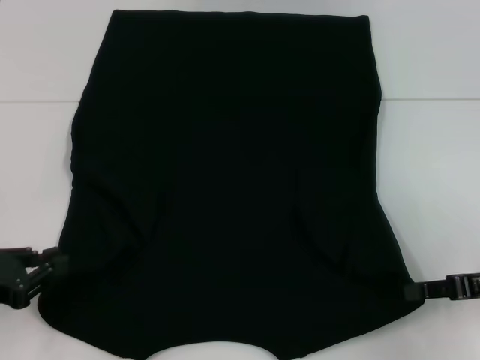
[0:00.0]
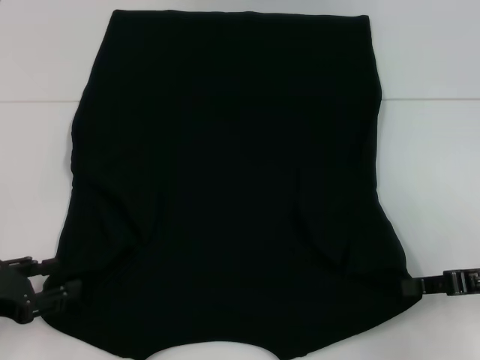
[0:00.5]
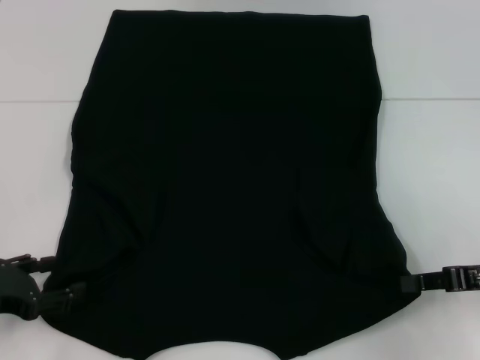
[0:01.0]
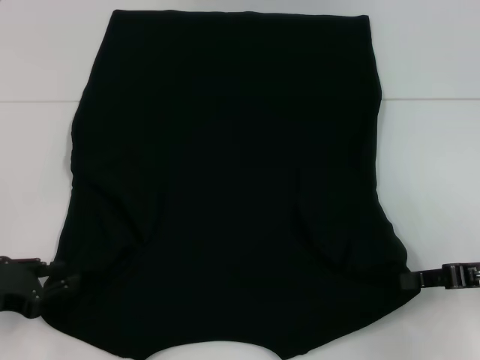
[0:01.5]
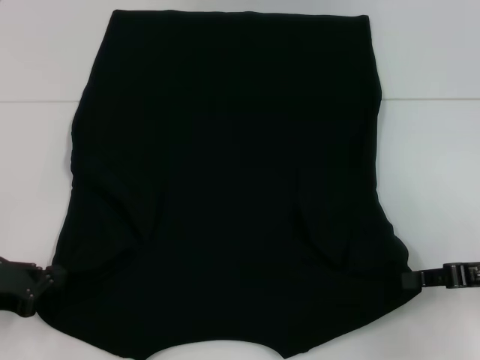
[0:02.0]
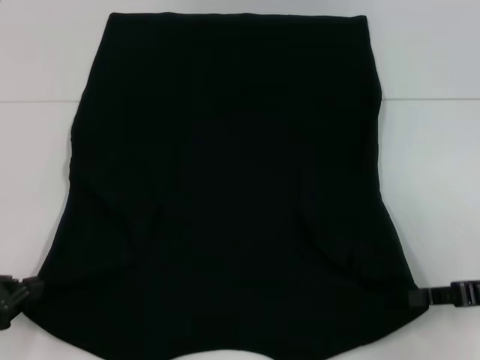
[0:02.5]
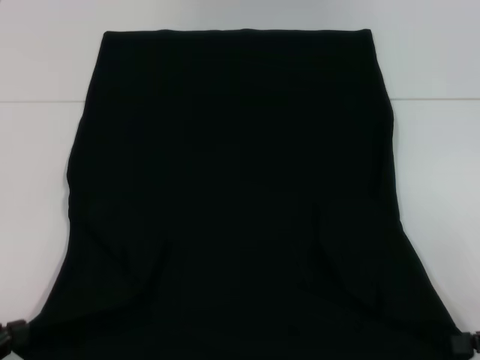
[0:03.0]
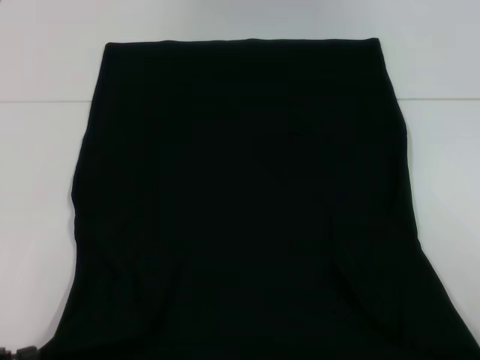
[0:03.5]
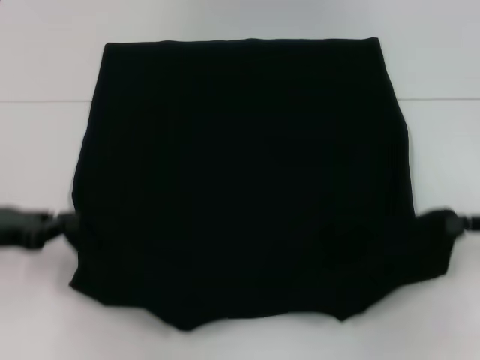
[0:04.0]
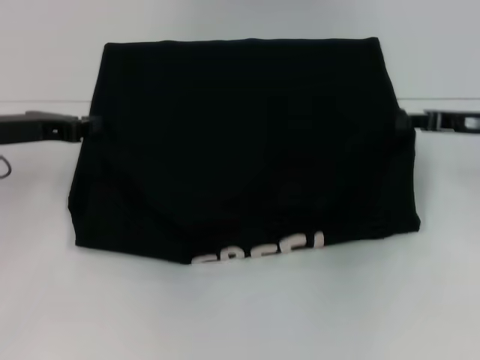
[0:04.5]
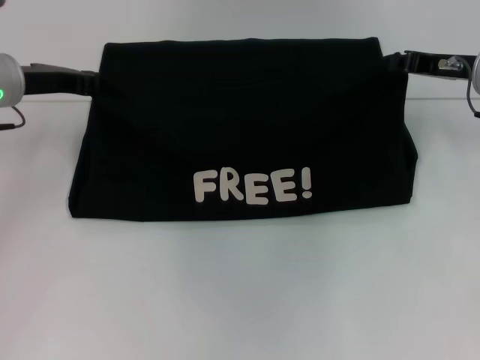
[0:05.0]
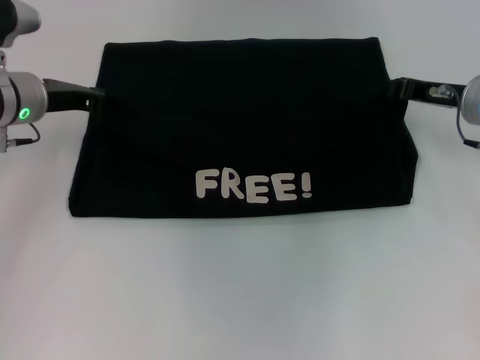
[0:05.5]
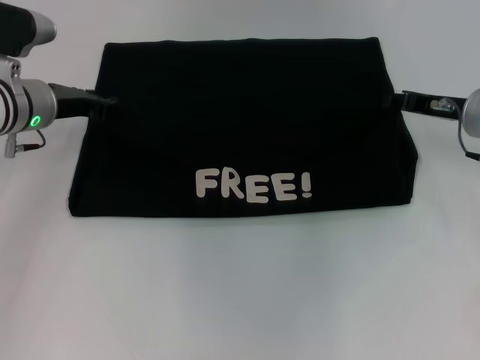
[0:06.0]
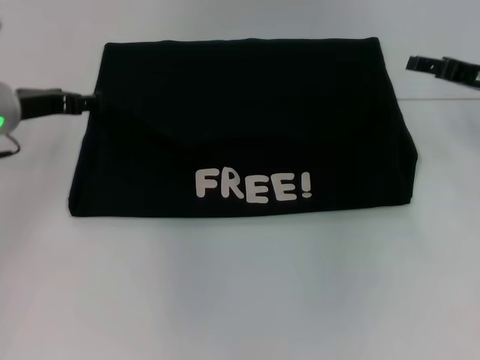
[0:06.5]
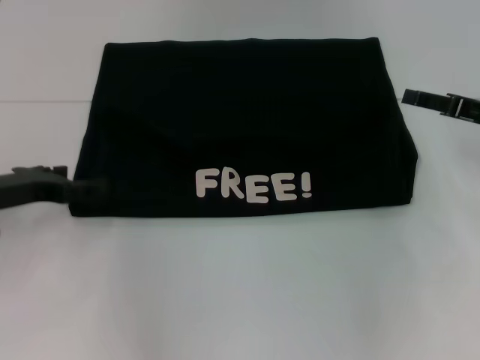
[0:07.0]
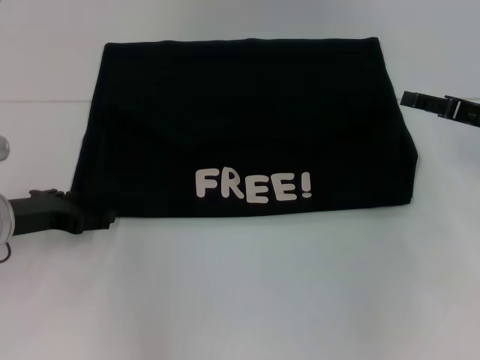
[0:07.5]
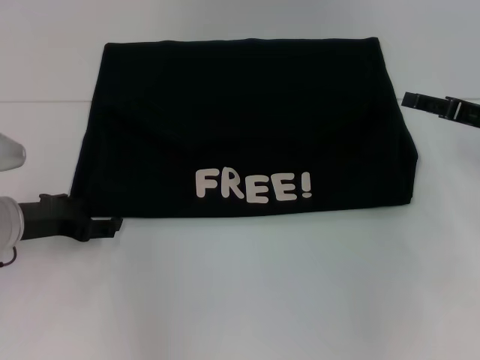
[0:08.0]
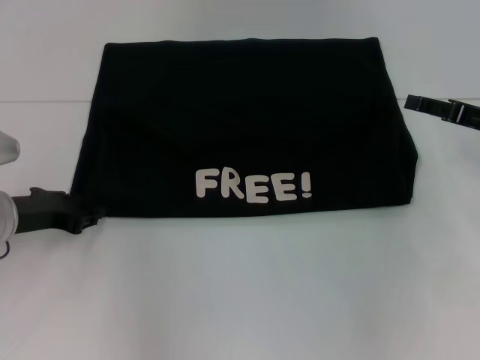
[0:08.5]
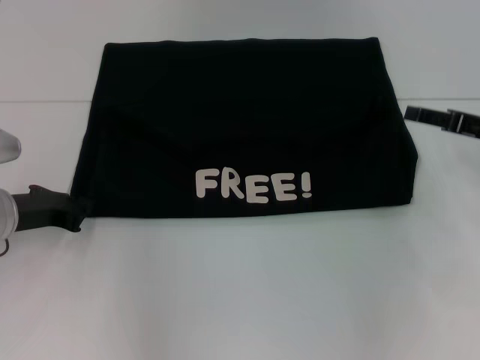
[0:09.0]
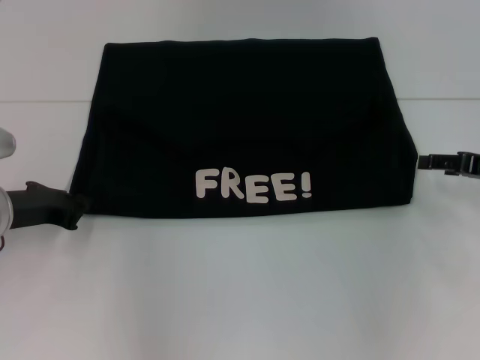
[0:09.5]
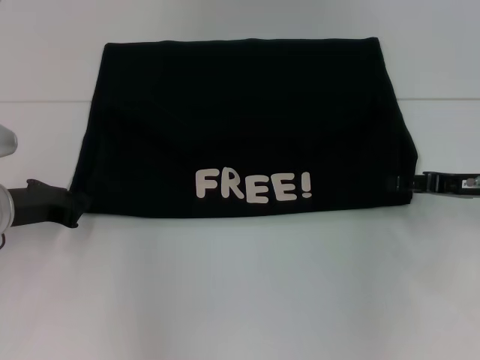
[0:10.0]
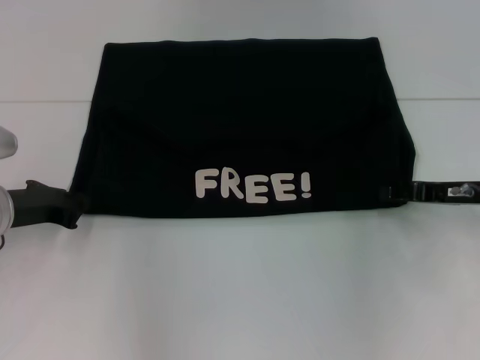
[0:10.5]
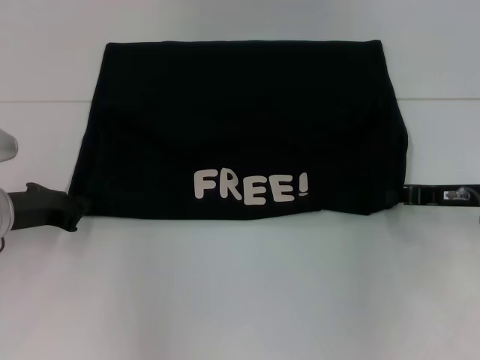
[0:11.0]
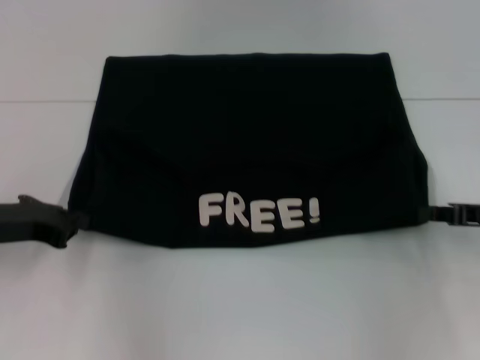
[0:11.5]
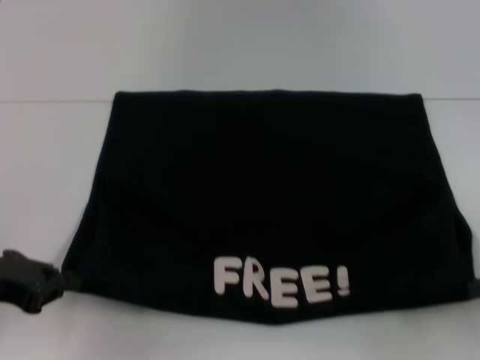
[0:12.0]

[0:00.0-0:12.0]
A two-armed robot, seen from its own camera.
Step, 0:00.0 to 0:06.0: Fold the clothes with your left hand.
Step, 0:00.0 to 0:06.0: Fold the clothes with your right hand.
0:00.0 to 0:02.0: The left gripper opens and closes again.
0:02.0 to 0:04.0: The right gripper goes backward and returns, approximately 10 cm each way. Meanwhile the left gripper goes backward and returns, about 10 cm each way.
0:04.0 to 0:06.0: The left gripper shifts some 20 cm forward and to the right; the right gripper heads forward and to the left, covering some 15 cm.
0:06.0 to 0:08.0: The left gripper travels backward and downward by approximately 10 cm, and opens up; the right gripper shifts roughly 5 cm to the right, and opens.
0:08.0 to 0:10.0: The left gripper closes up.
0:10.0 to 0:12.0: The left gripper goes about 10 cm backward. Meanwhile the right gripper heads backward and to the right, covering approximately 15 cm, and closes up.

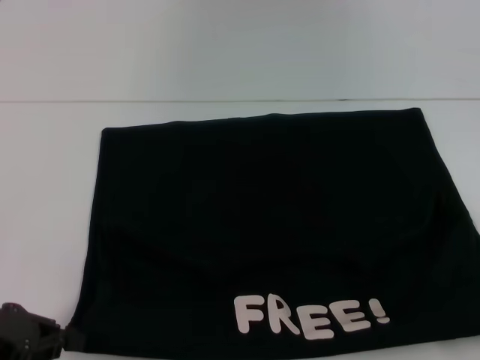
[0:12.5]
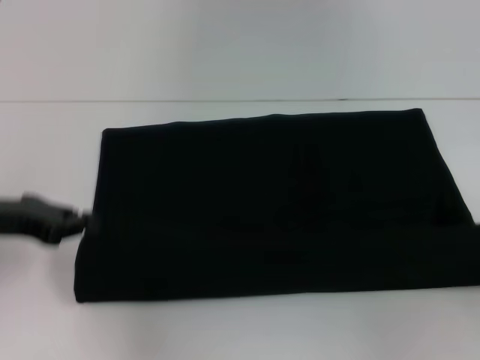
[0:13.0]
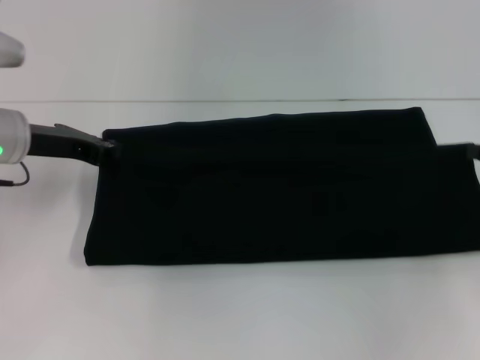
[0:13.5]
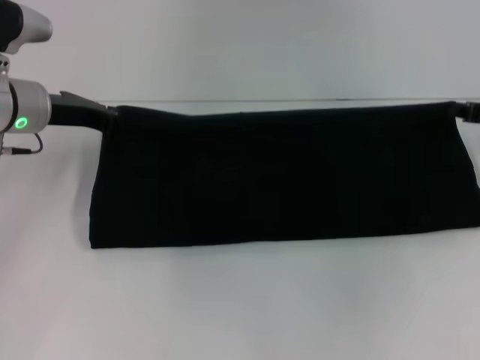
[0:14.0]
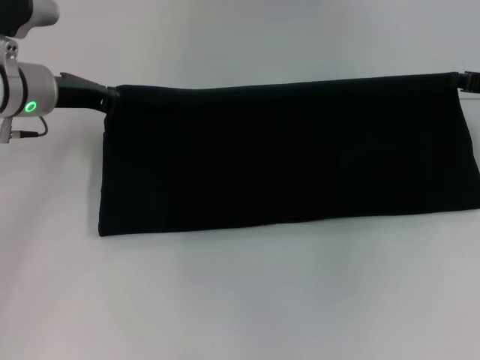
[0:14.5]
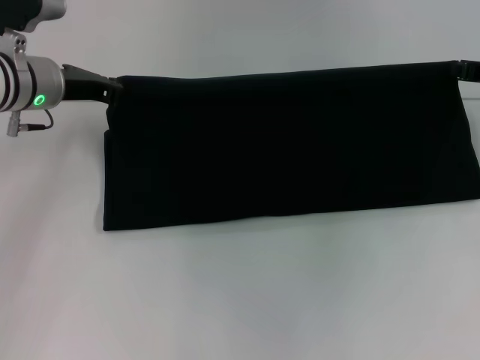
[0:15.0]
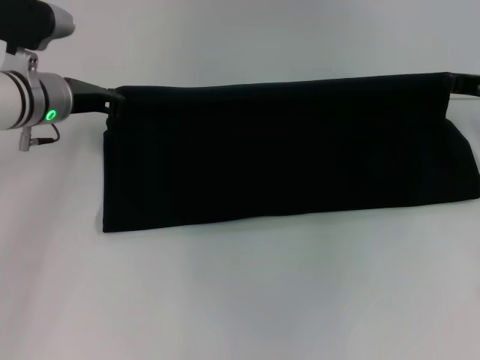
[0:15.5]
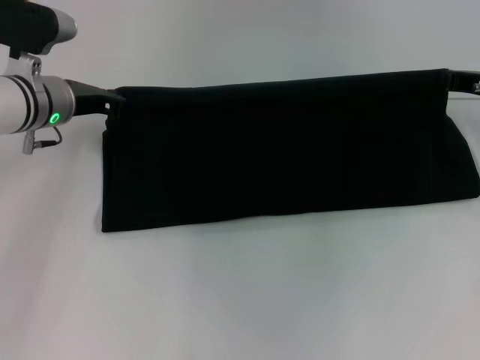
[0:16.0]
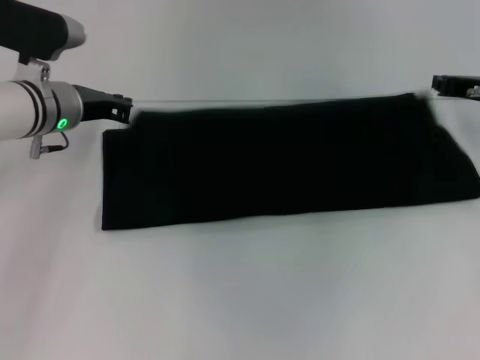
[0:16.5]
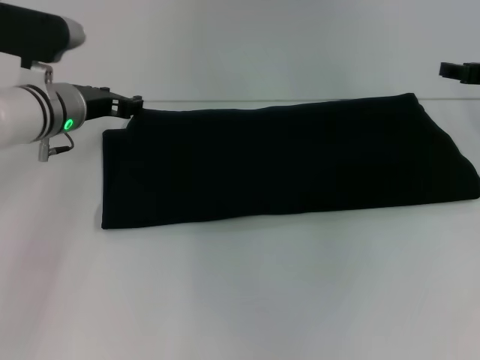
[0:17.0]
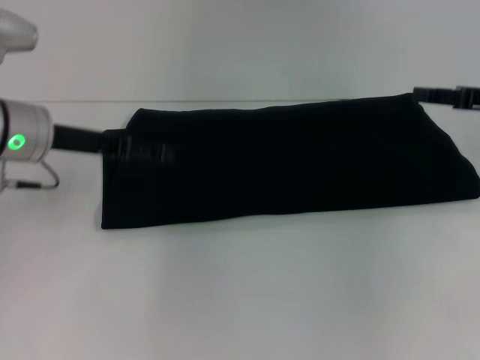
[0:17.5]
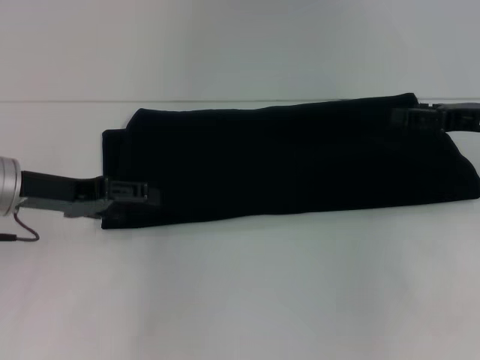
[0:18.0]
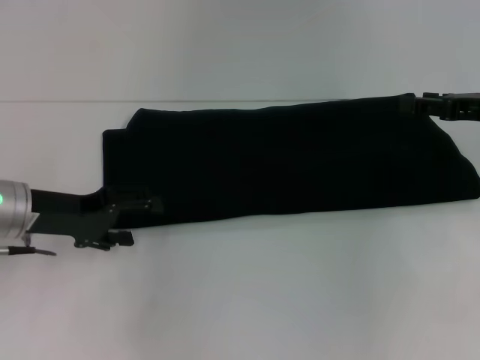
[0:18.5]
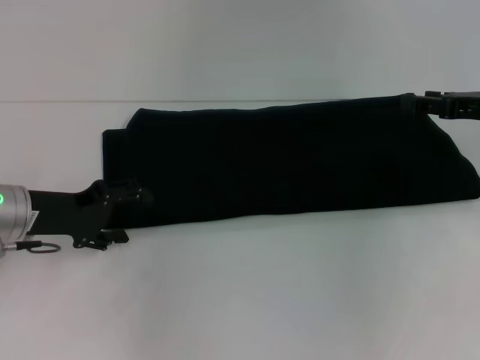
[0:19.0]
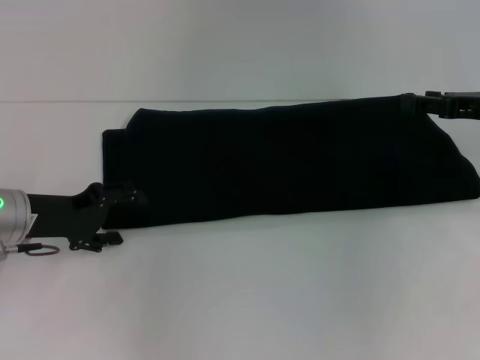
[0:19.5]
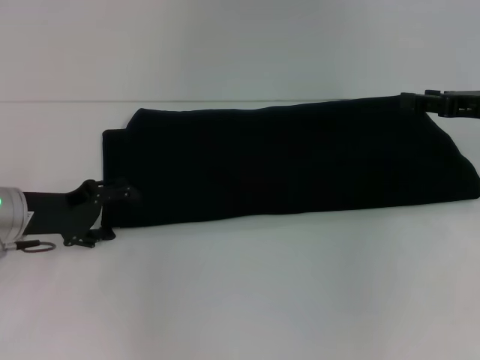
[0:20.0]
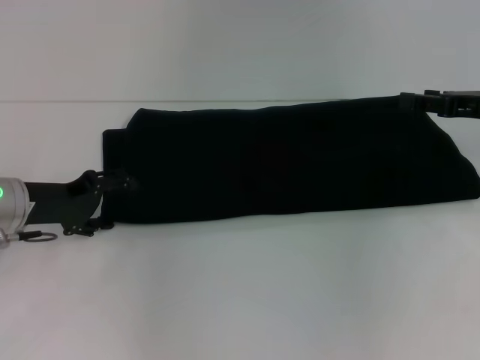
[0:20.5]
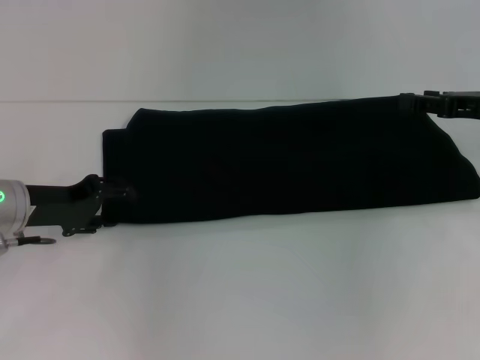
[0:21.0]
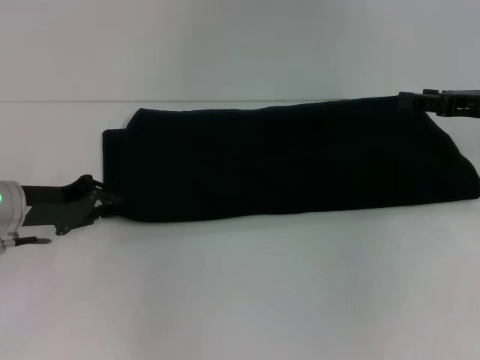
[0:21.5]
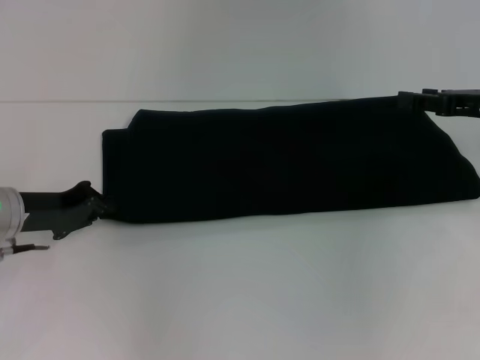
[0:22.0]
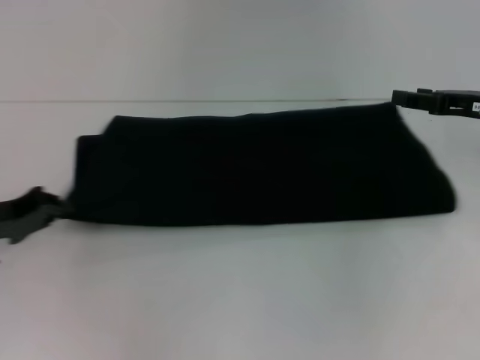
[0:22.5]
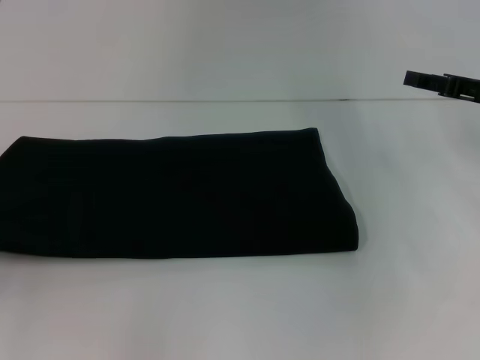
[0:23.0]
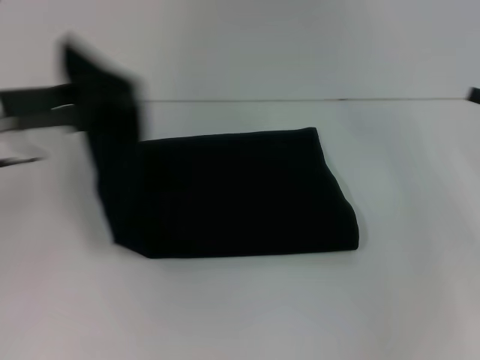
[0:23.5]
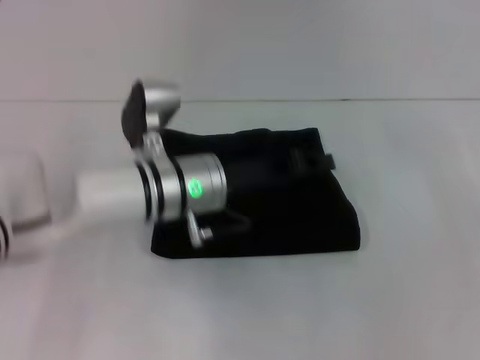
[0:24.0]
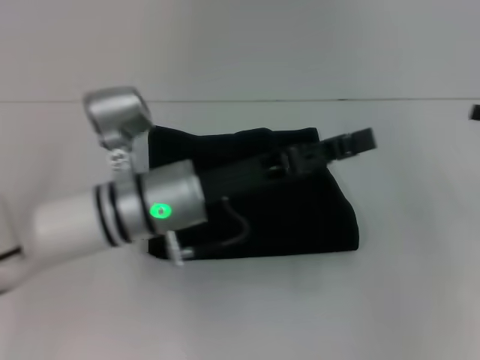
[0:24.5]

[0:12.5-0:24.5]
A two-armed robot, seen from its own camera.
Step, 0:13.0 to 0:16.5: Fold the clothes with your right hand.
Step, 0:13.0 to 0:24.0: Fold the clothes with your left hand.
0:12.5 to 0:14.5: Both grippers move forward, some 20 cm.
0:14.5 to 0:16.5: There are only small adjustments of the grippers.
0:16.5 to 0:18.5: The left gripper travels backward by roughly 10 cm, and opens its fingers; the right gripper ends up some 5 cm from where it was, and opens up.
0:18.5 to 0:20.5: The grippers make only small movements.
0:20.5 to 0:22.5: The left gripper travels to the left by about 5 cm, and closes.
0:22.5 to 0:24.5: The right gripper is displaced to the right by approximately 10 cm; the left gripper travels to the right by approximately 25 cm, and opens its fingers.

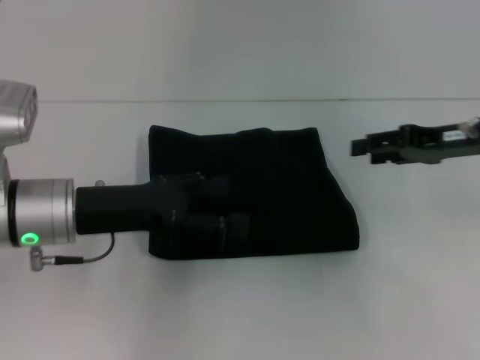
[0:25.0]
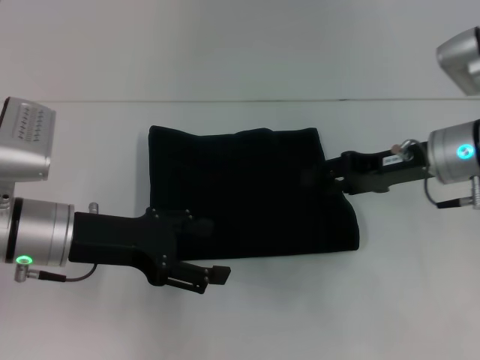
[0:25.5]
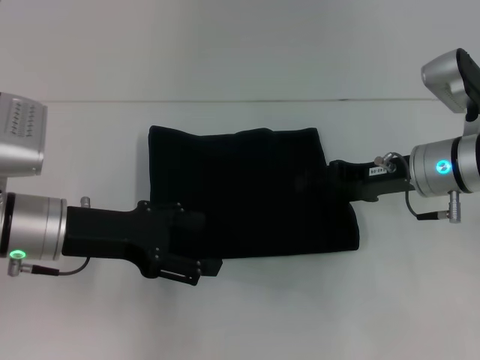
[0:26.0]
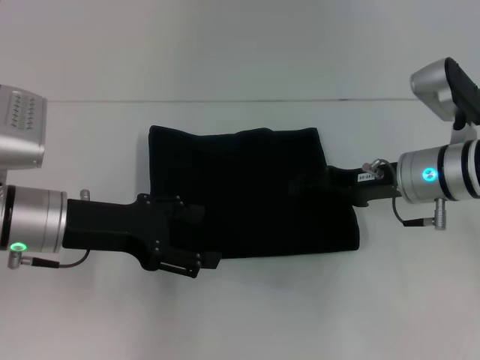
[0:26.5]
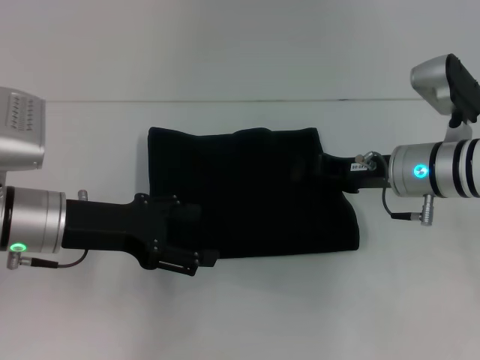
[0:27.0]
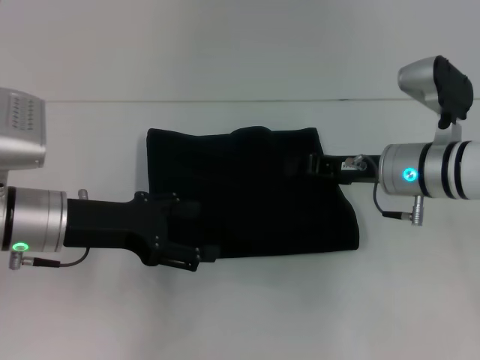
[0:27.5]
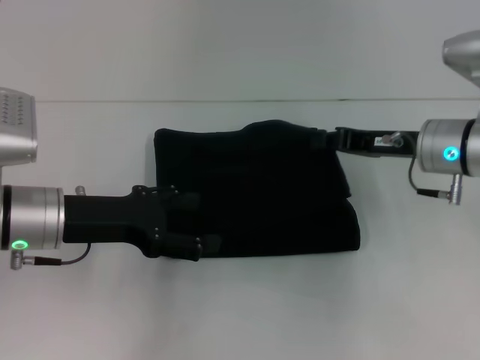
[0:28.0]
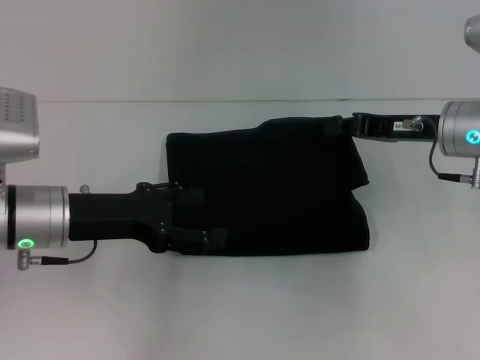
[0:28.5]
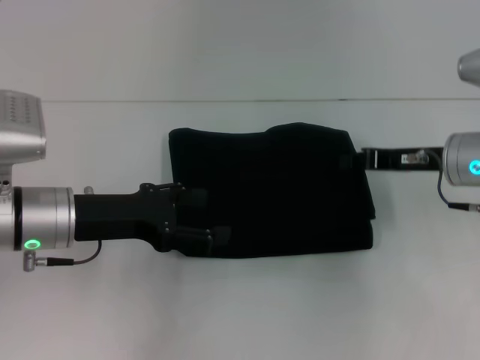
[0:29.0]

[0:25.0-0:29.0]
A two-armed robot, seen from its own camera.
0:25.0 to 0:27.0: The right gripper is displaced to the left and downward by some 10 cm, and closes its fingers.
0:27.0 to 0:29.0: The right gripper is displaced to the right by roughly 5 cm.
